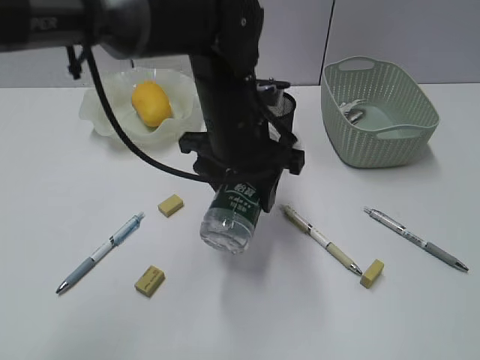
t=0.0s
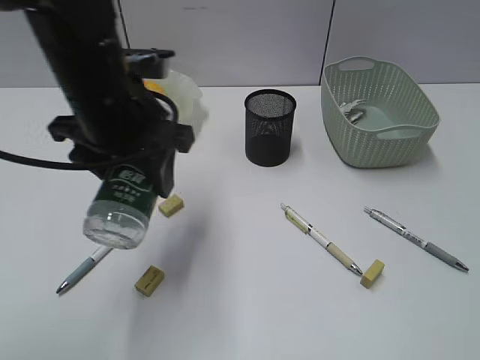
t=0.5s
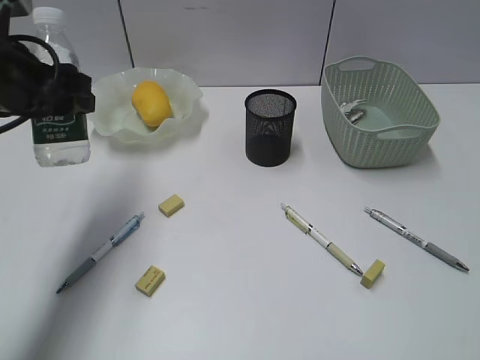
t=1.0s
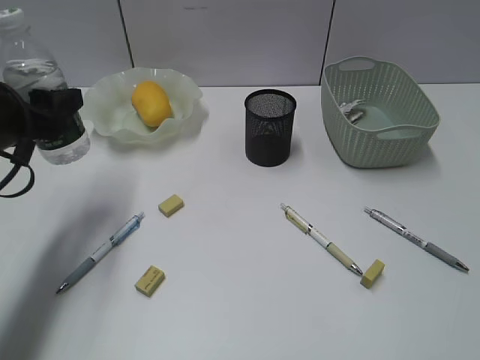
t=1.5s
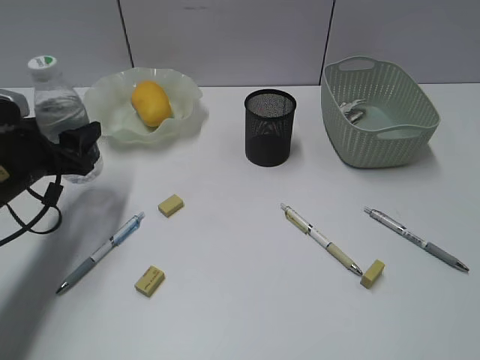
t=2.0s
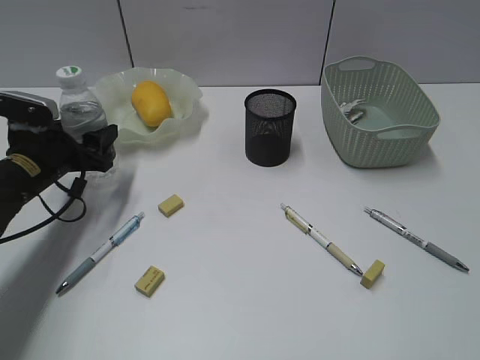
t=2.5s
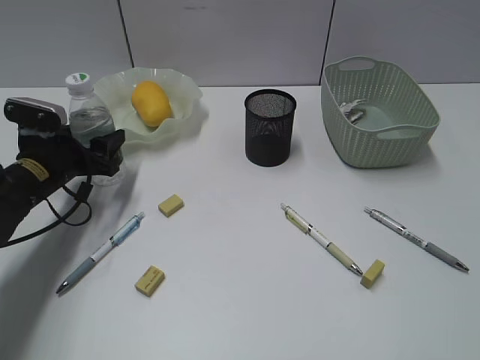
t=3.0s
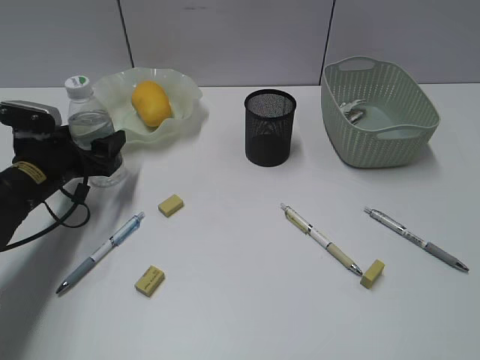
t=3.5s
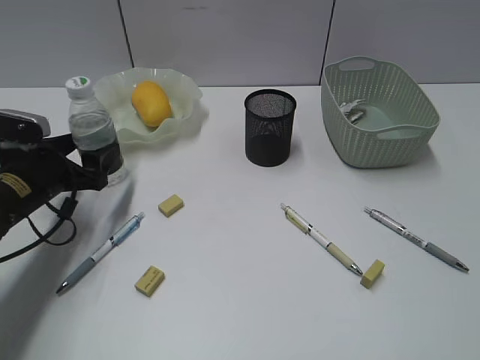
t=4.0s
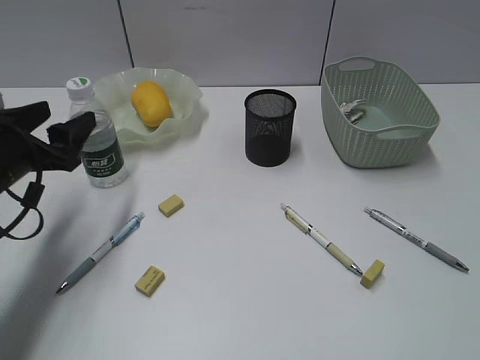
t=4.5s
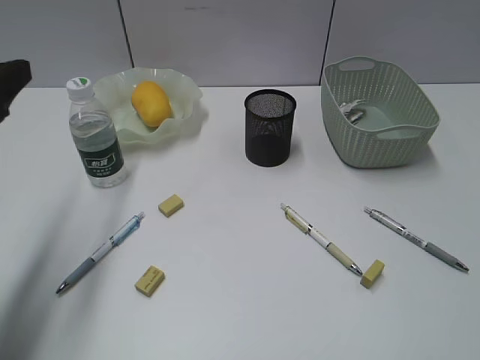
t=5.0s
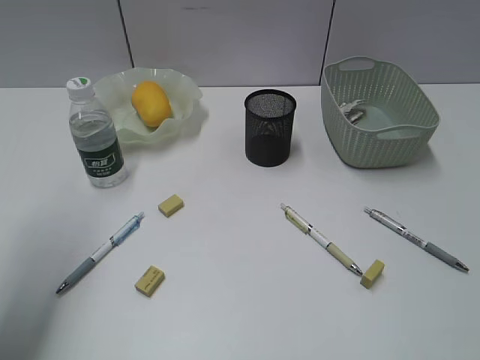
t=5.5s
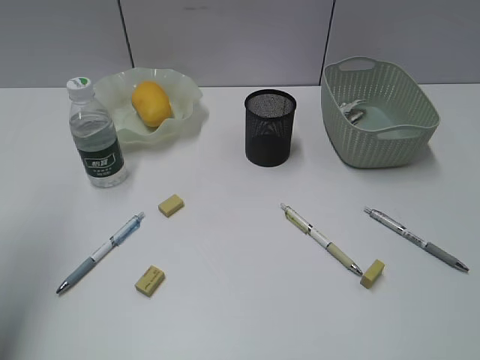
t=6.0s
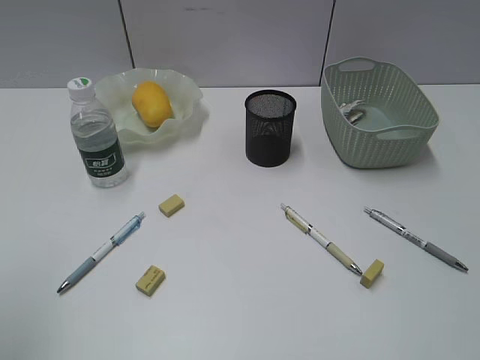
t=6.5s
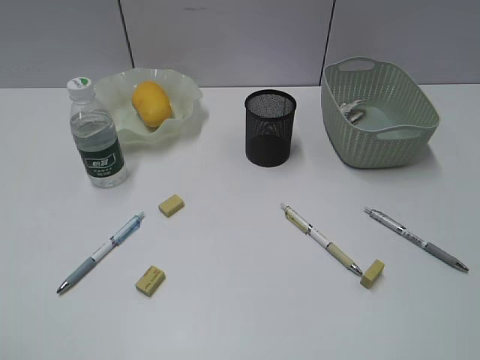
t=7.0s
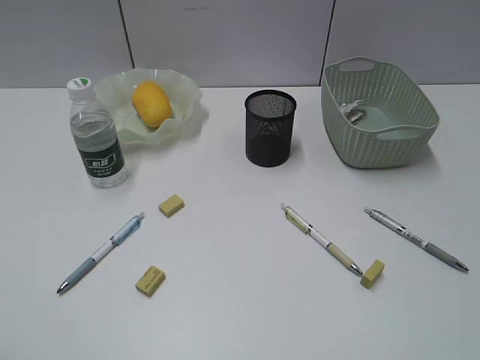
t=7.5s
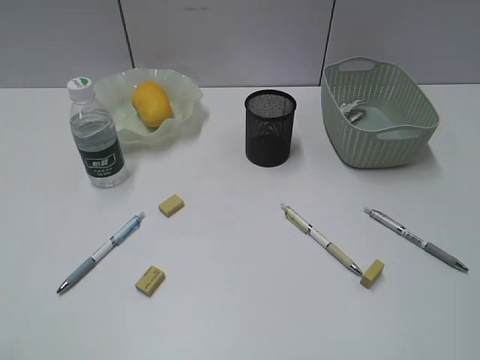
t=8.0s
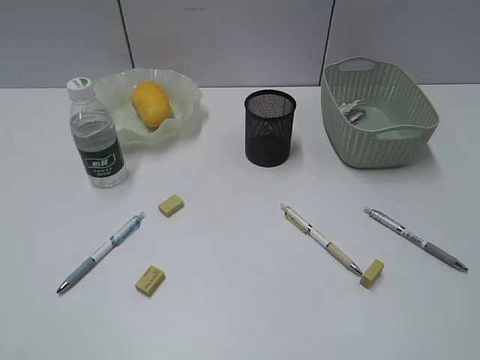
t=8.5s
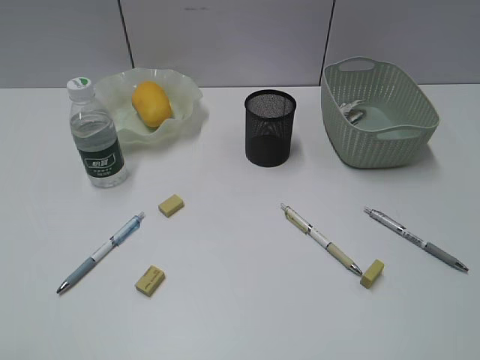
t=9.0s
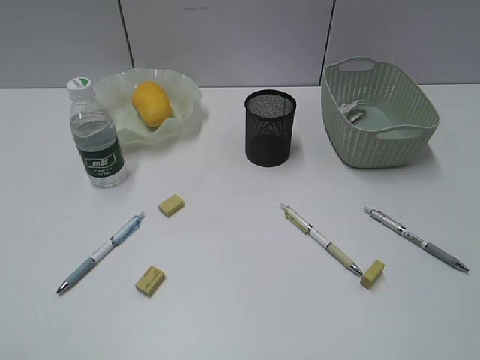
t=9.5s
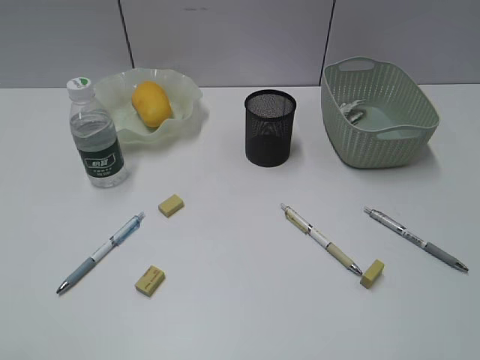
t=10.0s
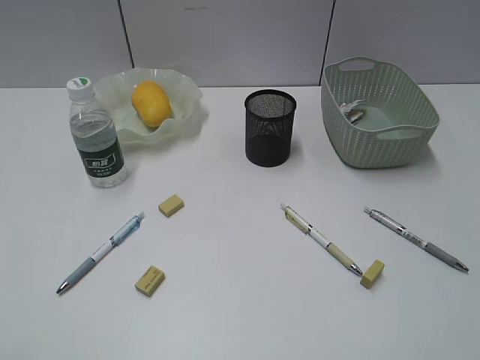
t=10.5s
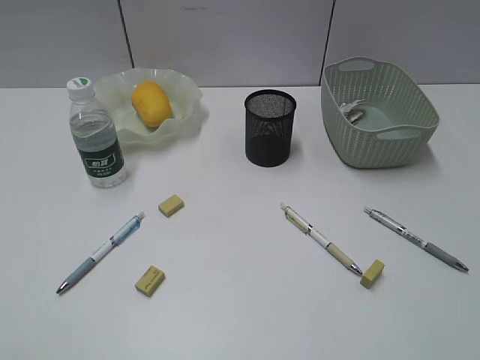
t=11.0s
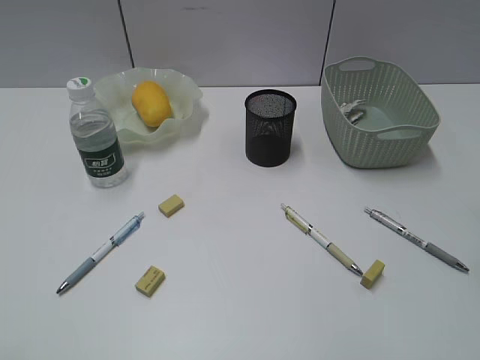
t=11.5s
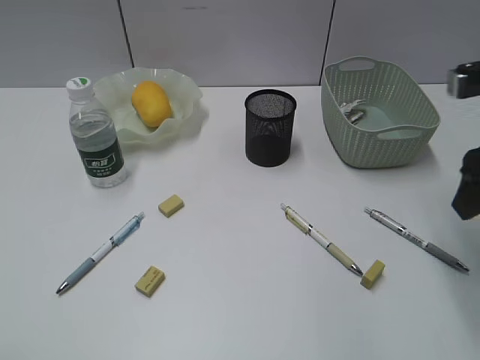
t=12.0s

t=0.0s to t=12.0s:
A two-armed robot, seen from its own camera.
Step, t=0.0s to t=4.0s: Stand the bottle with left gripper.
t=0.0s to t=2.0s: The left gripper heads to the left, covering approximately 25 cm.
t=2.0s to t=4.0s: The left gripper goes about 5 cm downward.
t=4.0s to t=6.0s: The left gripper is displaced upward and backward by about 30 cm.
t=6.0s to t=8.0s: The left gripper travels backward by approximately 20 cm.
t=10.0s to t=12.0s: The right gripper goes roughly 25 cm forward, and opens its fingers.

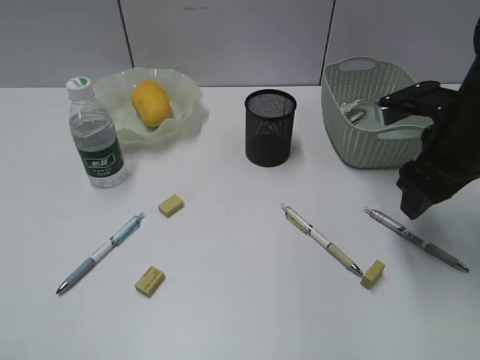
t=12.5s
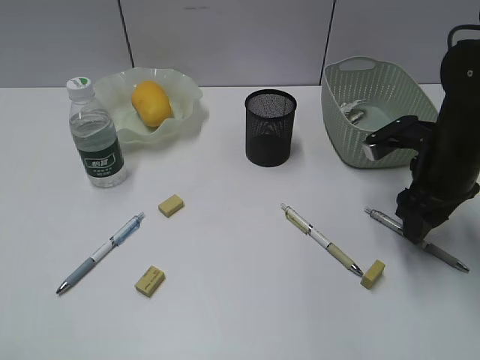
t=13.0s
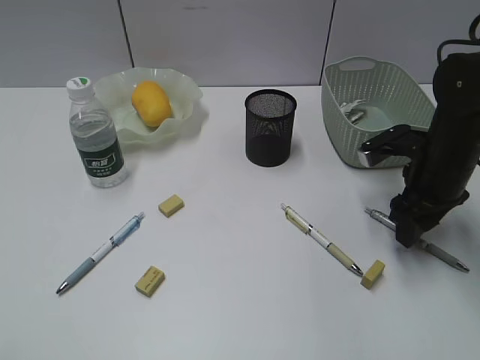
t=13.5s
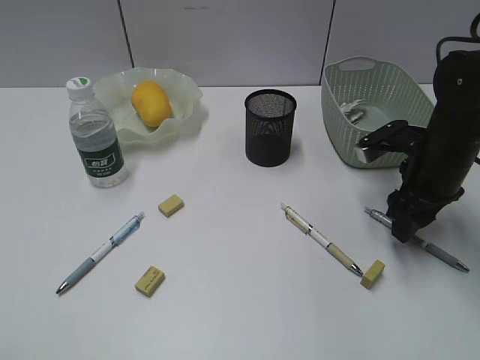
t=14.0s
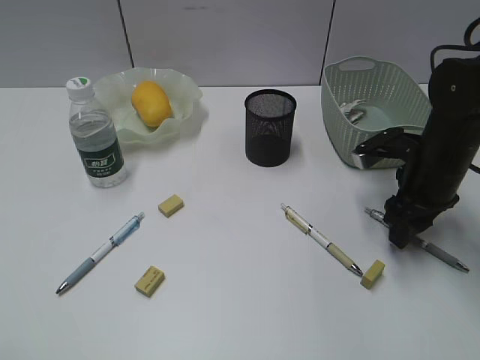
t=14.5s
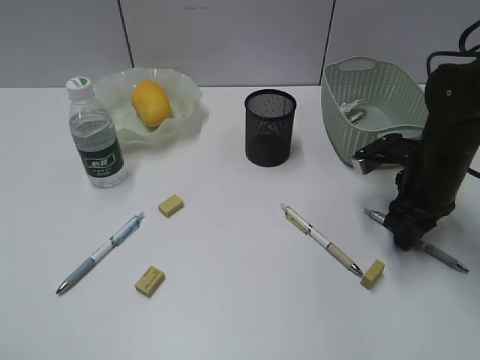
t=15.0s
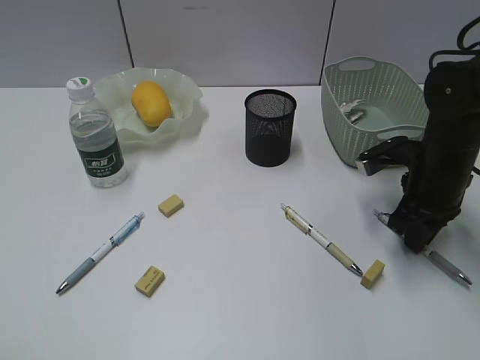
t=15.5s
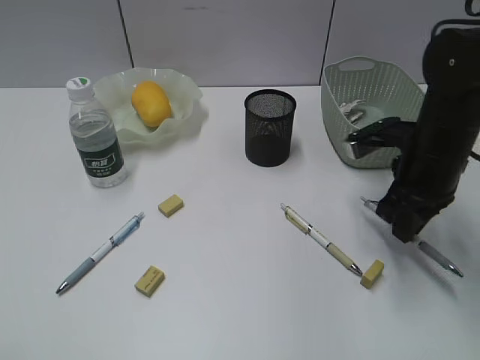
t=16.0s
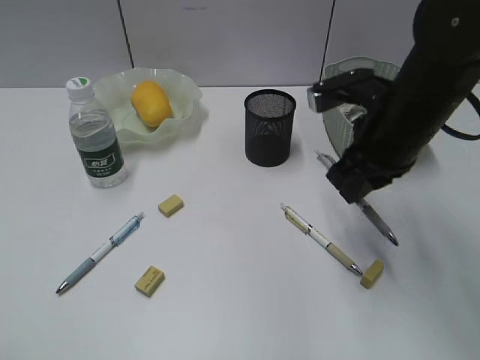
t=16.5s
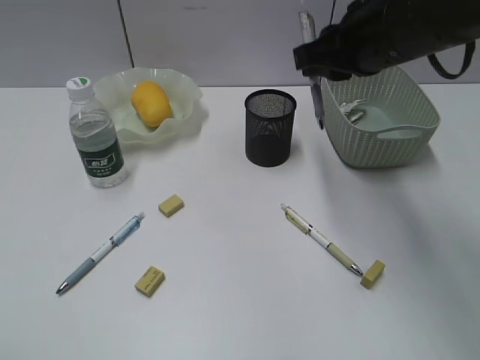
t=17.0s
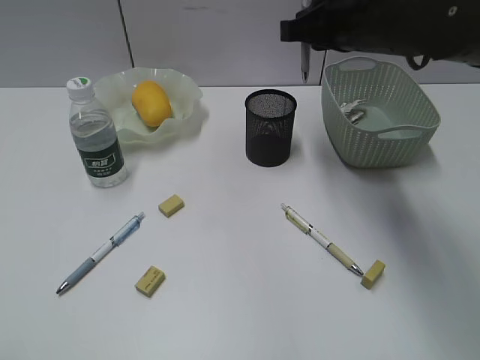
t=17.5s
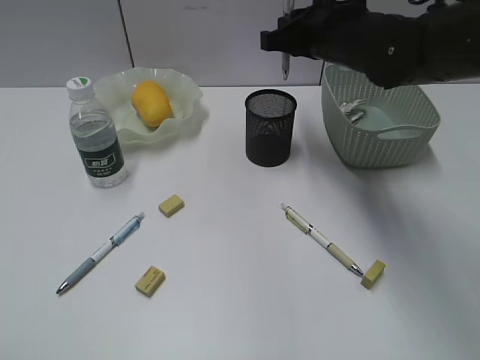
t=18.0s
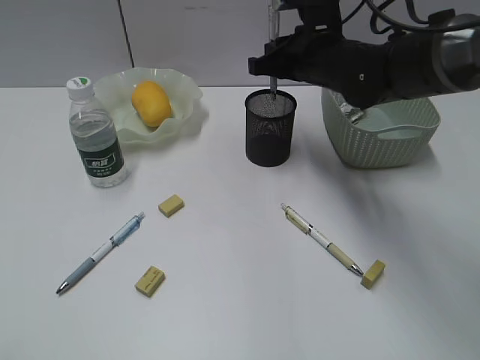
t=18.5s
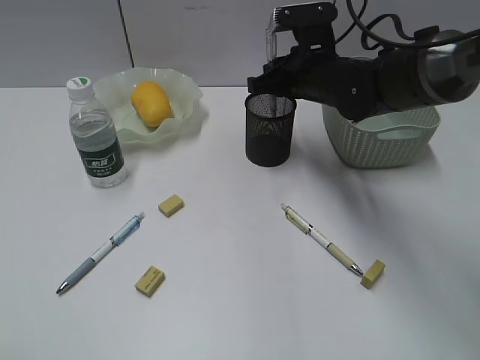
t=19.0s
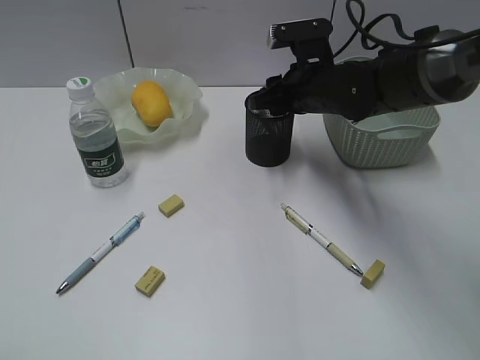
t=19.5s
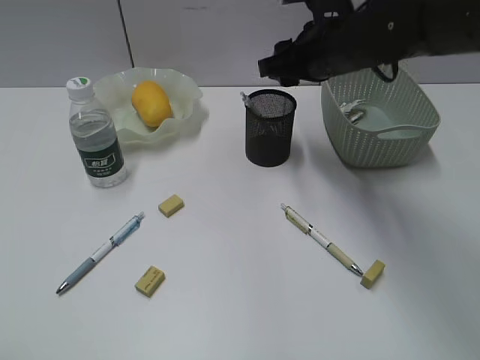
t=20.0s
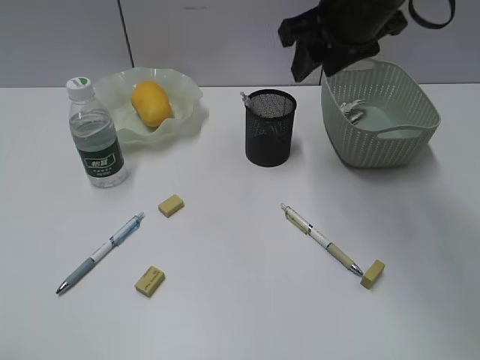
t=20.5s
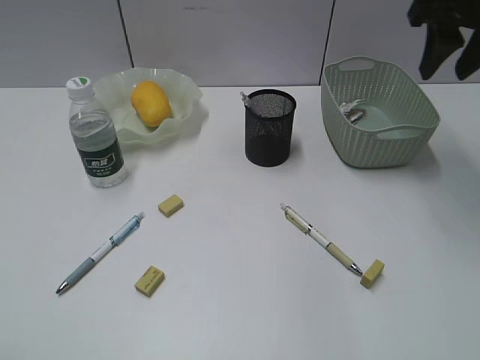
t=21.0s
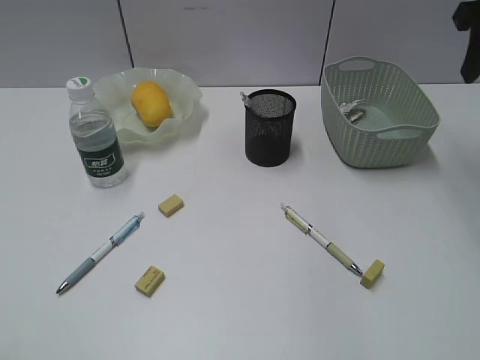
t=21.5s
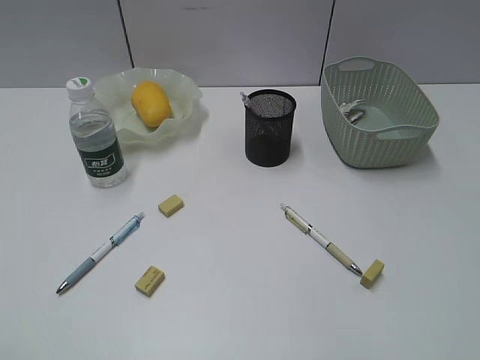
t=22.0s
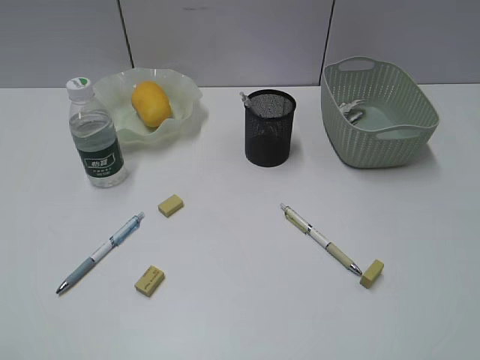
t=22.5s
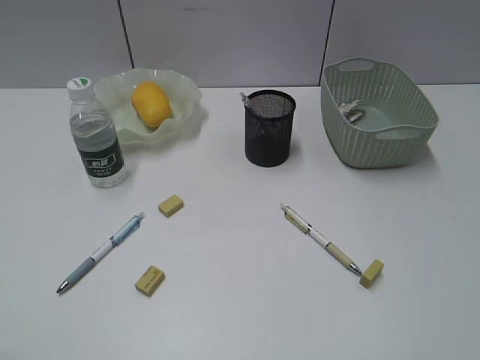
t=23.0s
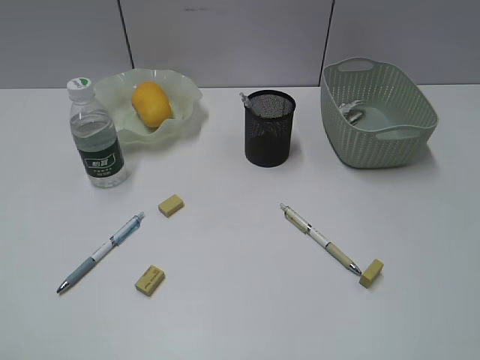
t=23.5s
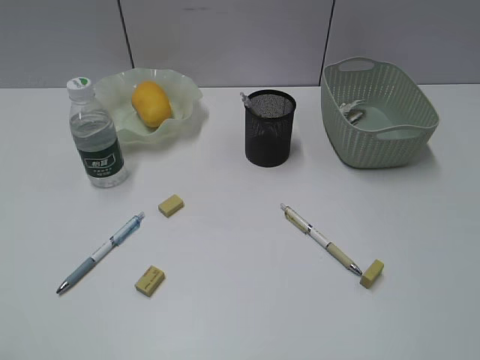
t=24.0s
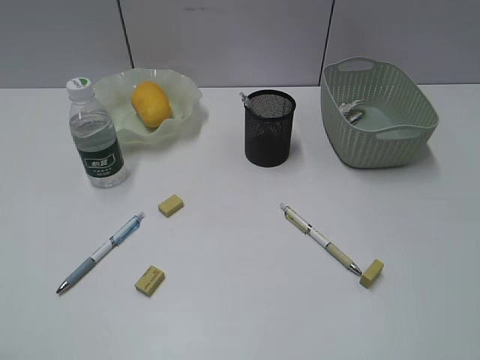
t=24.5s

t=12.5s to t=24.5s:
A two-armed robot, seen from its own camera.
Step, t=12.5s to t=15.0s: Grasp the gray pen with right gripper.
Step, t=15.5s to t=19.5s: Place the gray pen in pen holder with right gripper.
t=12.5s to t=14.5s: The right gripper travels downward by about 10 cm.
t=14.5s to t=16.5s: The right gripper travels upward and to the left by approximately 10 cm, and closes.
t=16.5s to t=18.5s: The right gripper is displaced forward and to the left by roughly 15 cm.
t=18.5s to t=20.5s: The right gripper goes about 10 cm upward, and opens up.
t=20.5s to t=22.5s: The right gripper shifts approximately 35 cm backward and to the right.

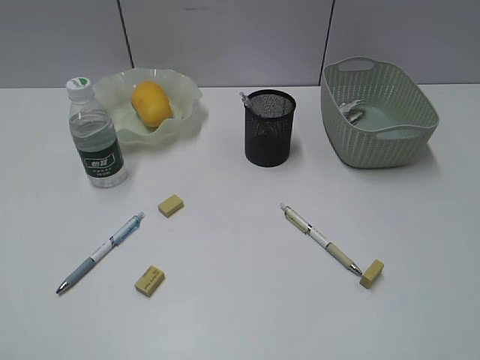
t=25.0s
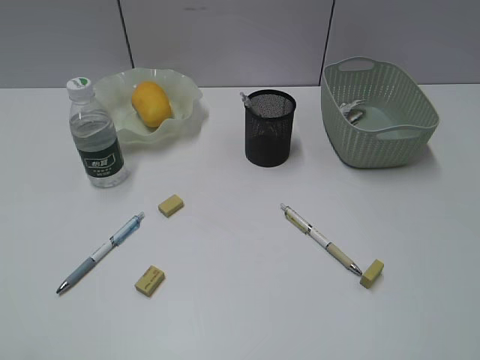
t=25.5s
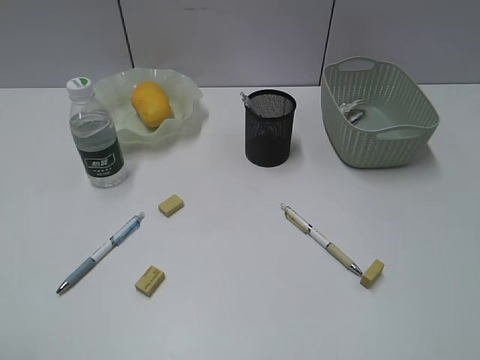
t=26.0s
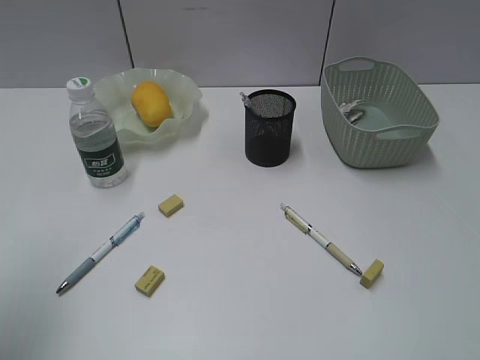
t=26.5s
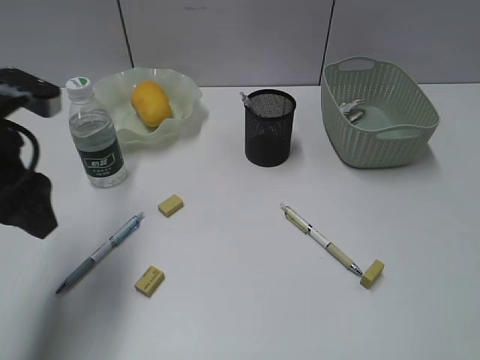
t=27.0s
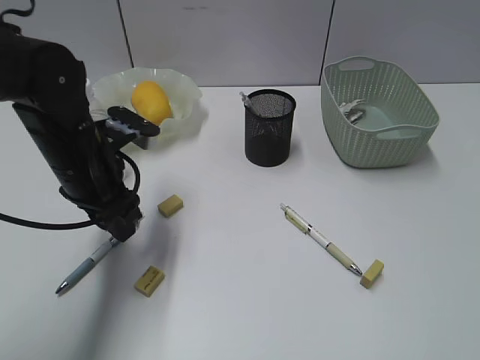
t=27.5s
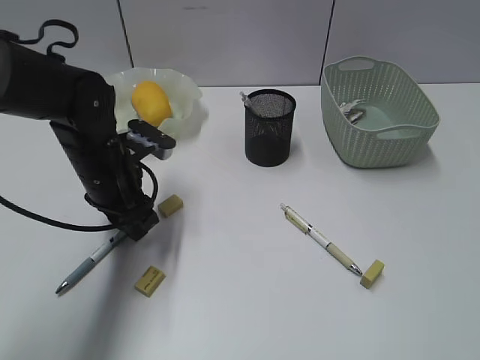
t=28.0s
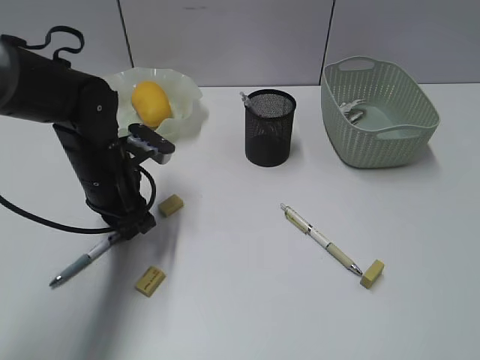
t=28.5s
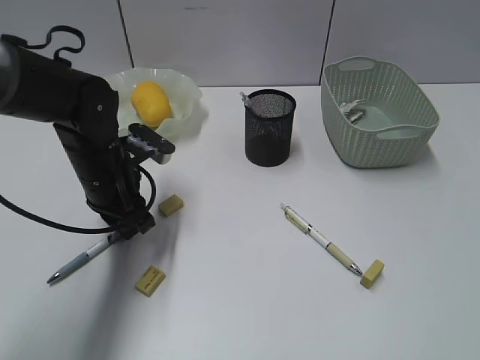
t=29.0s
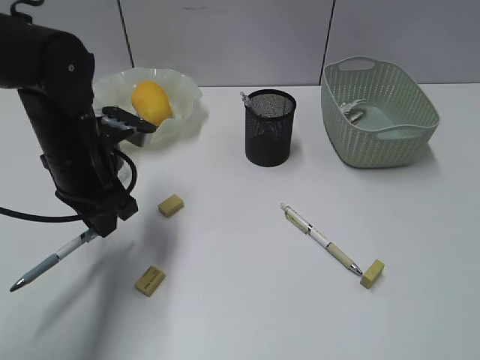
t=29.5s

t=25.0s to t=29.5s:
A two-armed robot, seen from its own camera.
Step, t=25.0s to t=29.0s: Grasp the blue pen with left gripper.
t=25.0s to t=27.0s: The left gripper shifts about 25 cm forward, and opens.
t=27.0s to t=29.5s: The left gripper heads downward, to the right and forward, covering about 15 cm, and closes its fingers.
